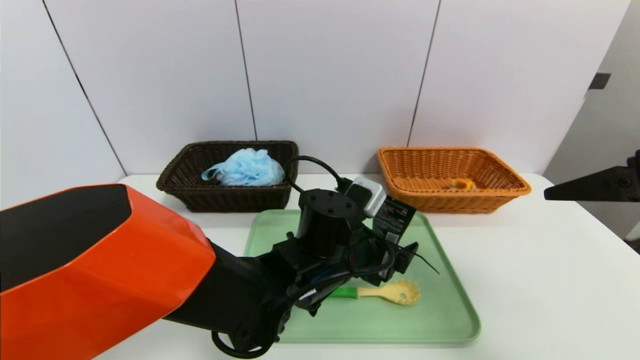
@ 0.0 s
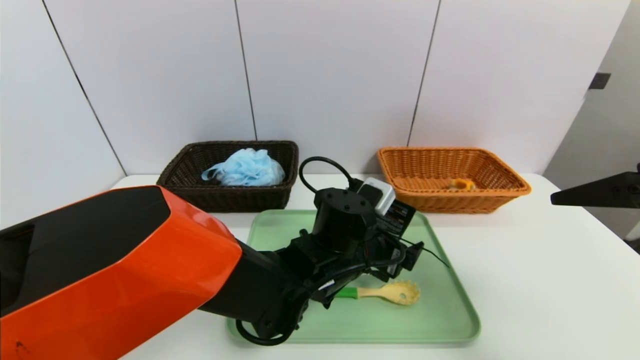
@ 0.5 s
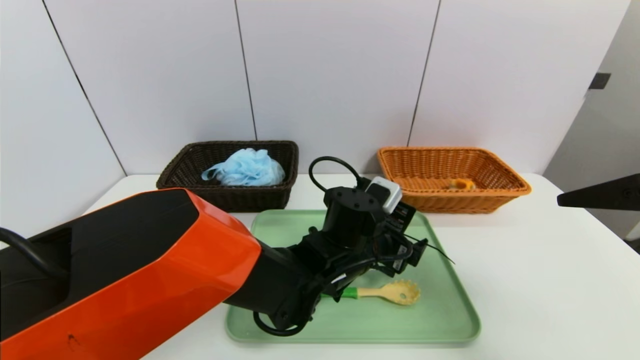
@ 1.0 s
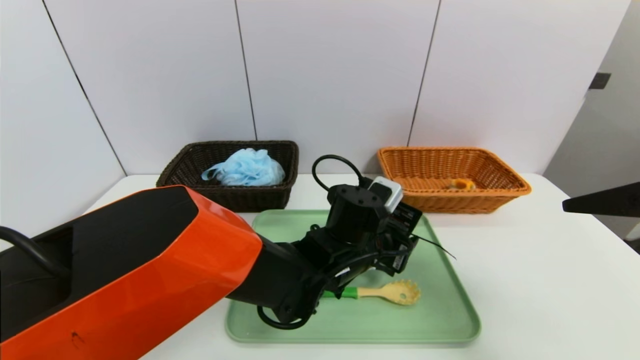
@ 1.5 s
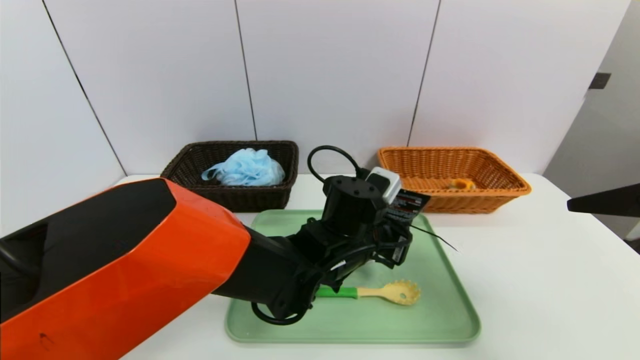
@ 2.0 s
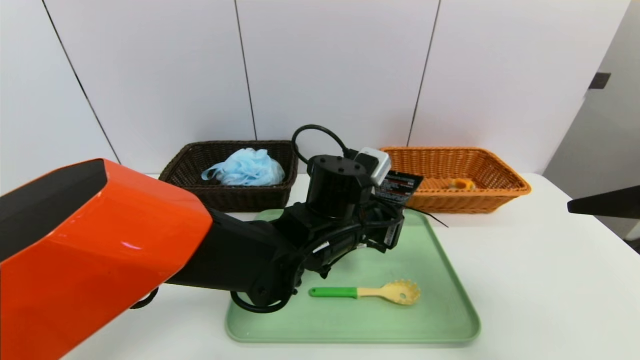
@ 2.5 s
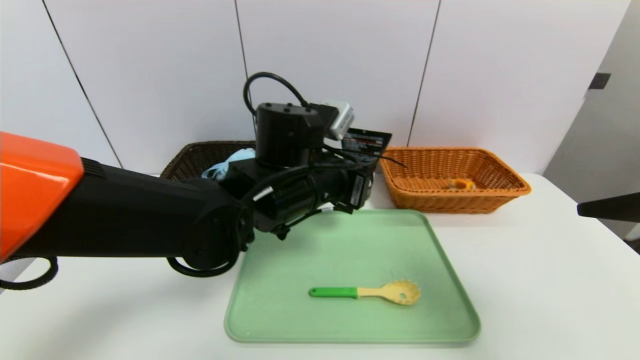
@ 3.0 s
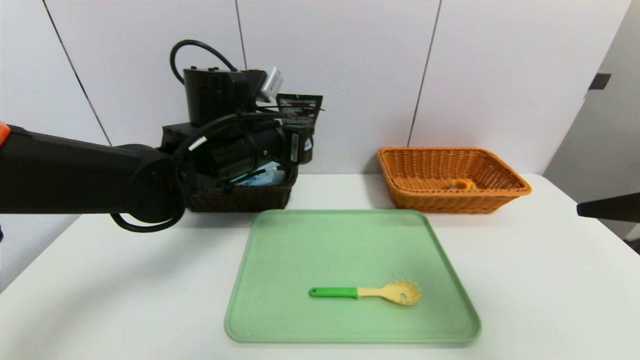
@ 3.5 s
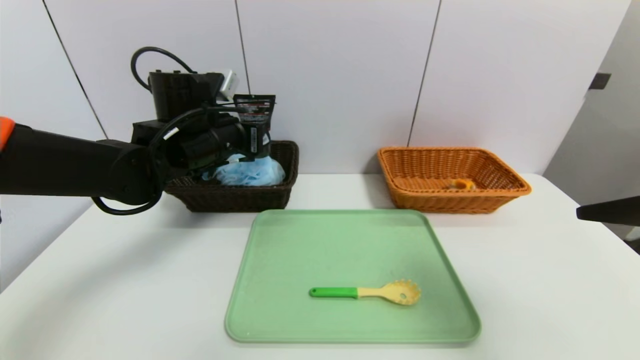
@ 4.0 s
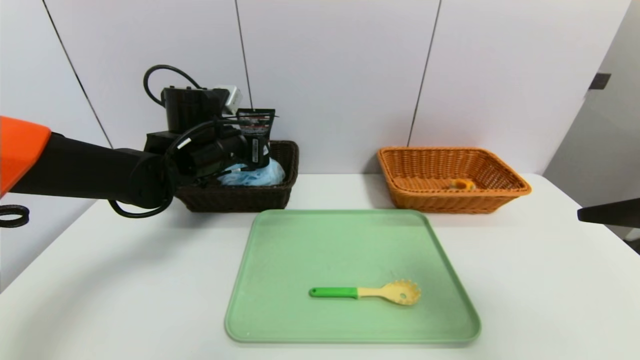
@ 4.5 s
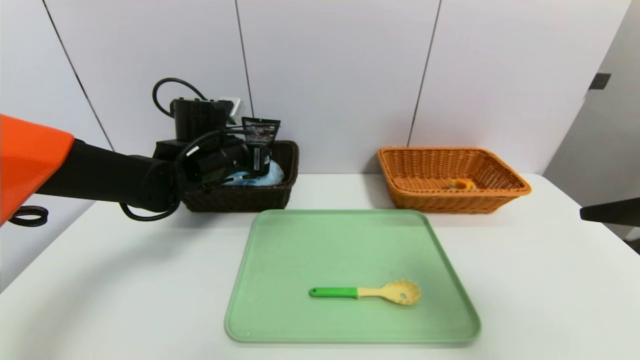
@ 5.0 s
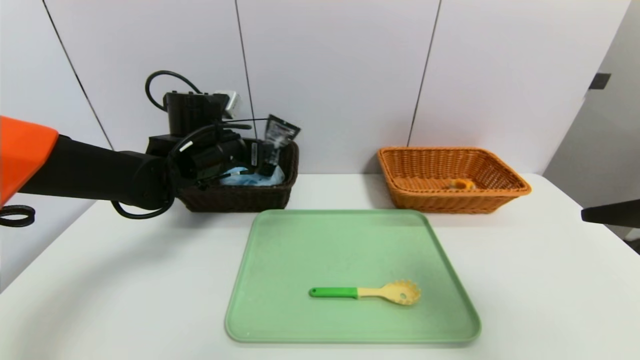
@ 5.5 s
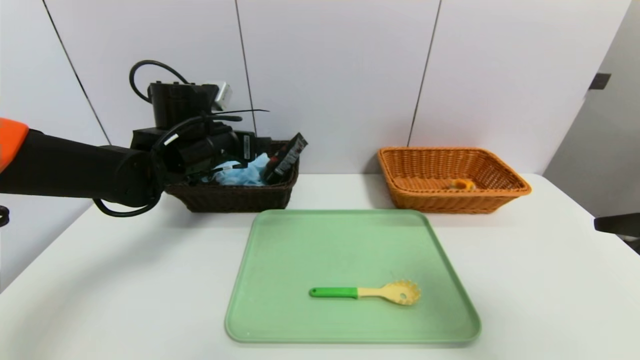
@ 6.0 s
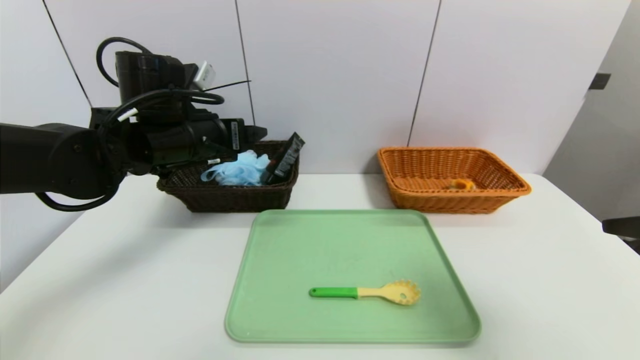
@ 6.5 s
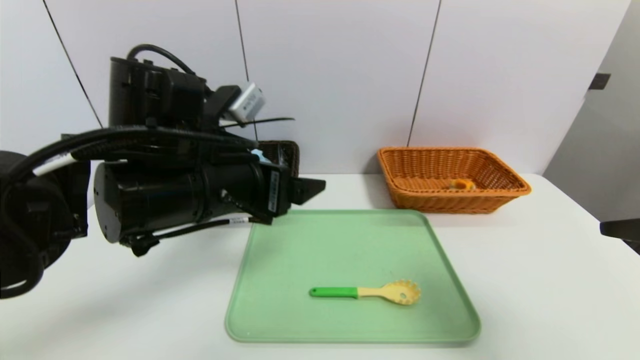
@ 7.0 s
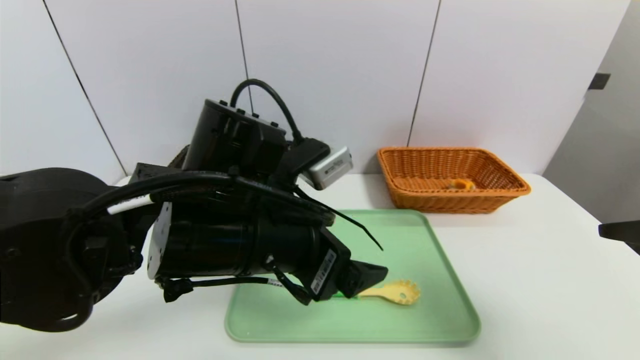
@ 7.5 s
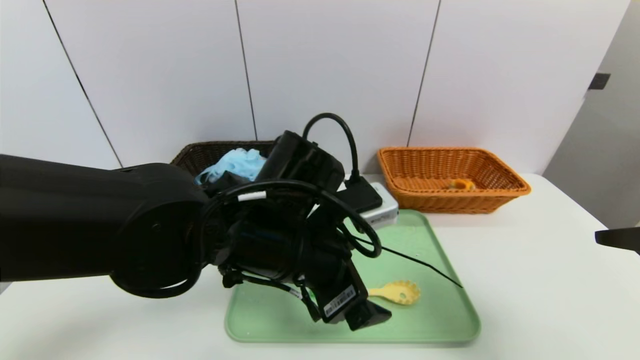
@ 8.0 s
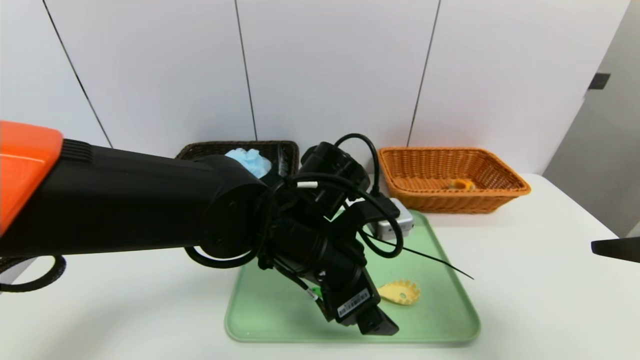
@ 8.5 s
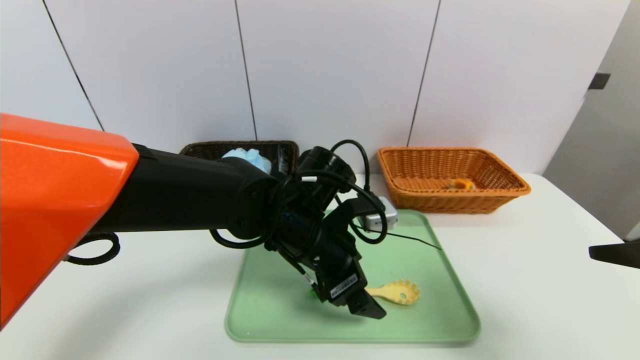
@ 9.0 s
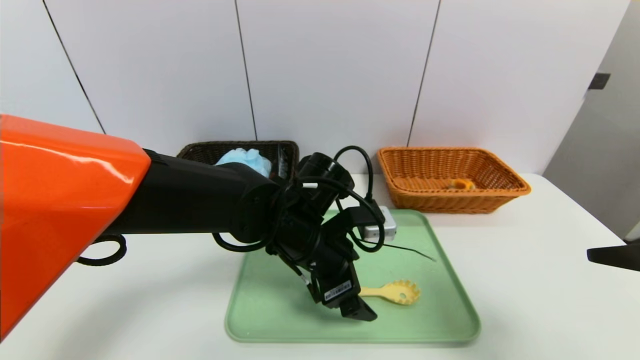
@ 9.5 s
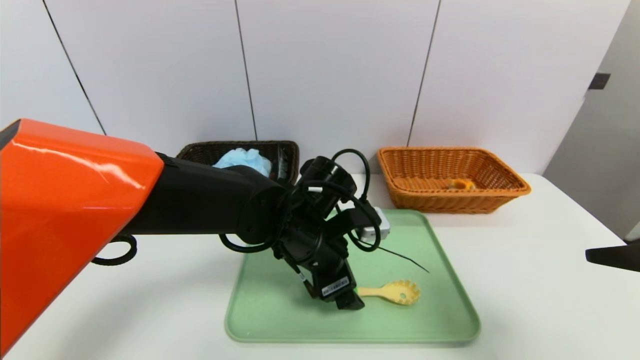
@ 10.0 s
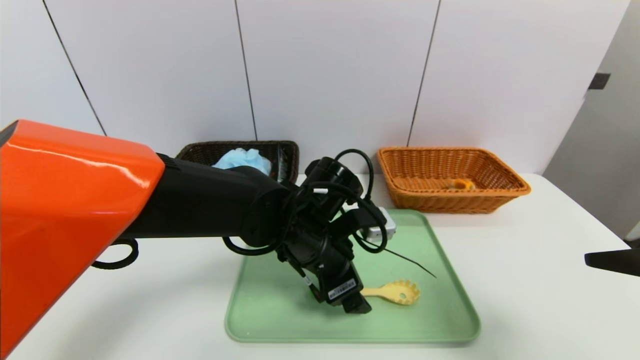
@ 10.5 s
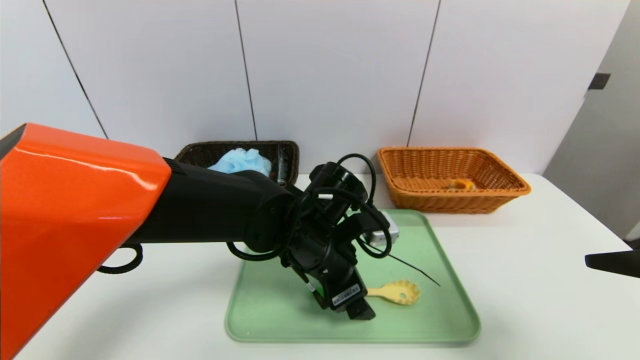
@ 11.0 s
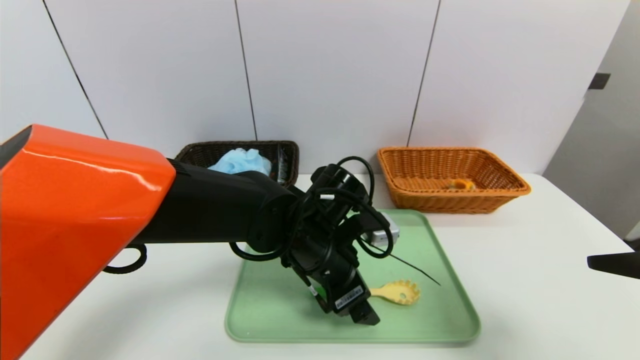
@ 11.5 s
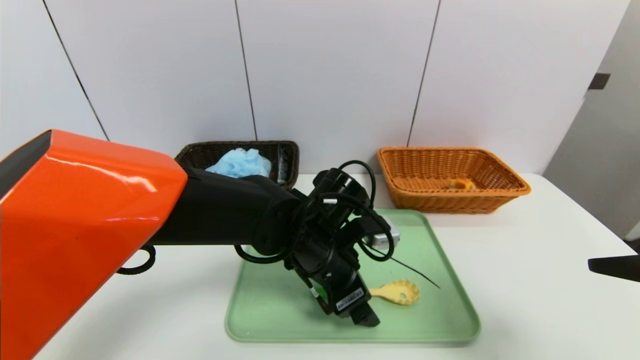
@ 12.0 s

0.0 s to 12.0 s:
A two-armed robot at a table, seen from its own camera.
Task of the whole recording: place the food in the right basket with the right gripper, and place the non food items in the left basket with the left gripper.
Step, 0.0 to 5.5 s: Grasp the soft cleanser and put it in the left basket.
0.0 to 2.0 s: The left gripper closes.
2.0 to 4.0 s: The left gripper shifts approximately 25 cm to the left and upward.
4.0 to 6.0 s: The left gripper opens up.
6.0 to 8.0 s: The left gripper moves backward and to the right, about 20 cm.
8.0 to 10.0 s: The left gripper is displaced forward and downward by roughly 10 cm.
10.0 to 12.0 s: There are only small adjustments of the grippers.

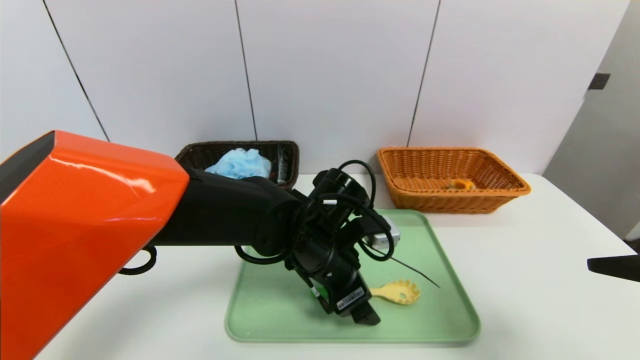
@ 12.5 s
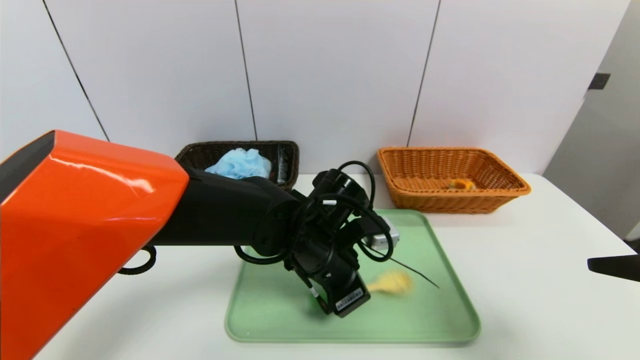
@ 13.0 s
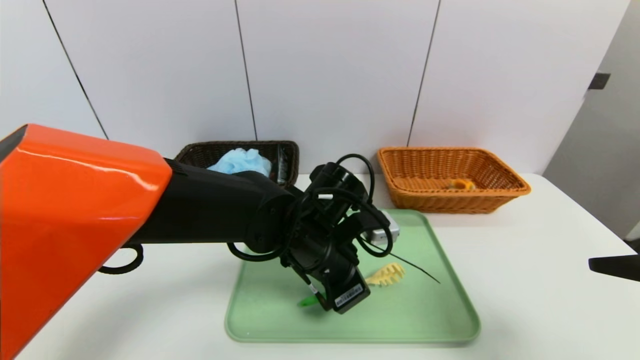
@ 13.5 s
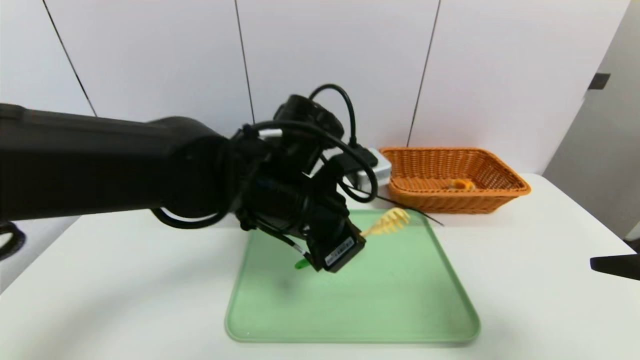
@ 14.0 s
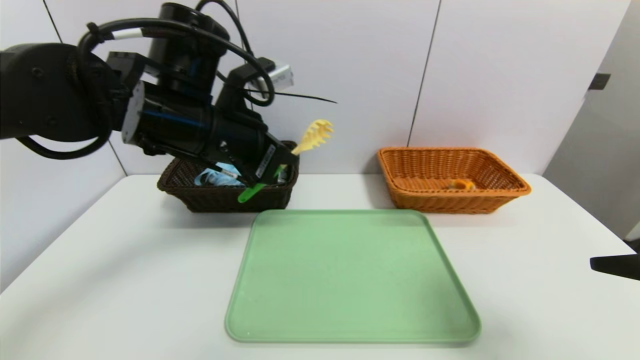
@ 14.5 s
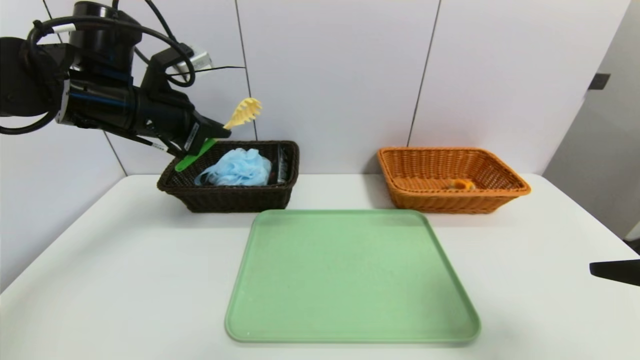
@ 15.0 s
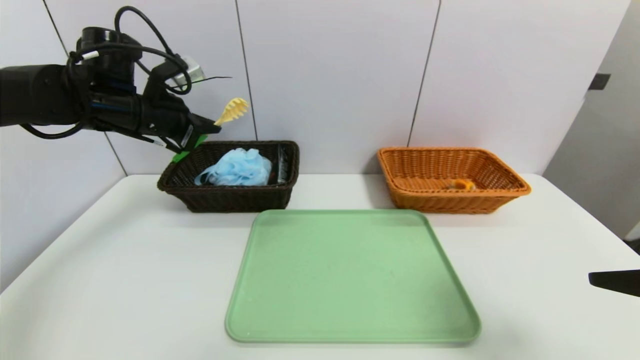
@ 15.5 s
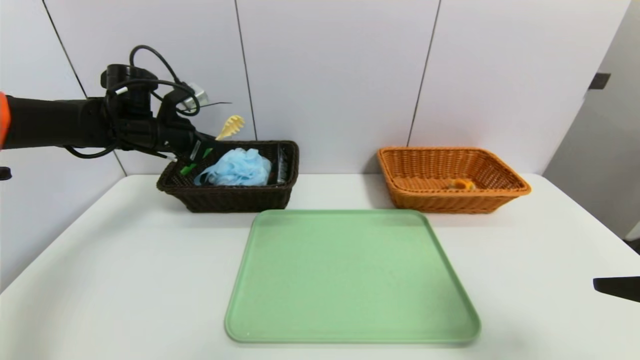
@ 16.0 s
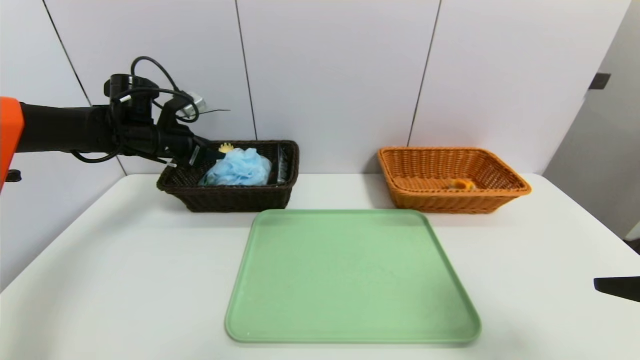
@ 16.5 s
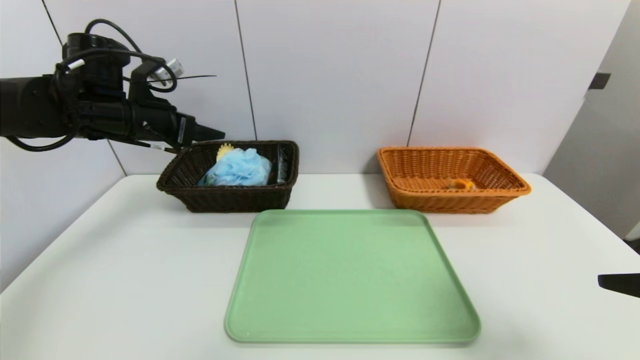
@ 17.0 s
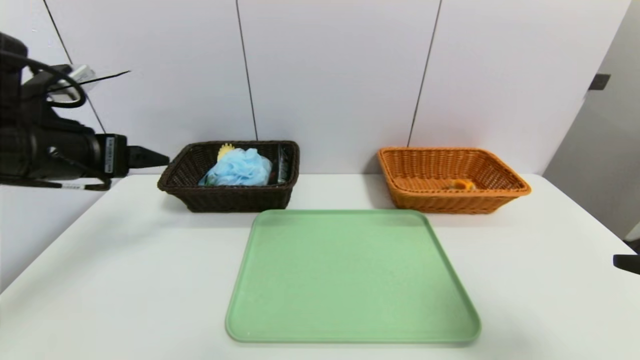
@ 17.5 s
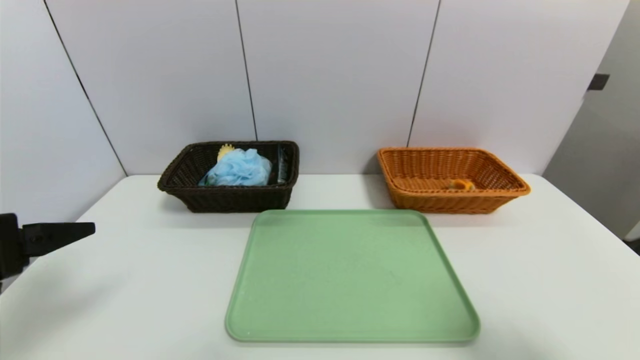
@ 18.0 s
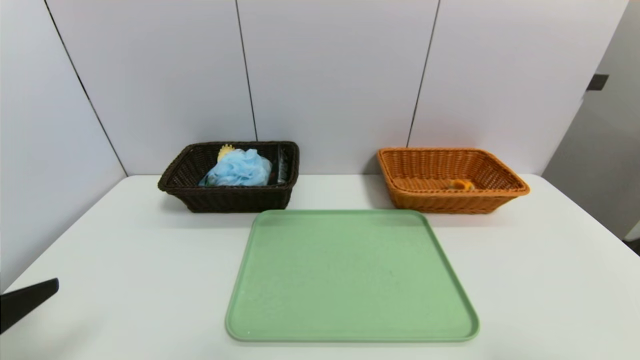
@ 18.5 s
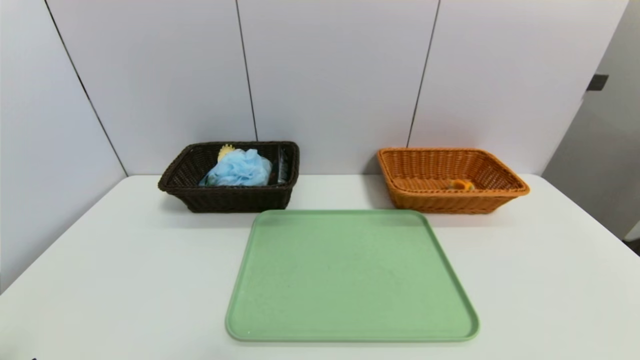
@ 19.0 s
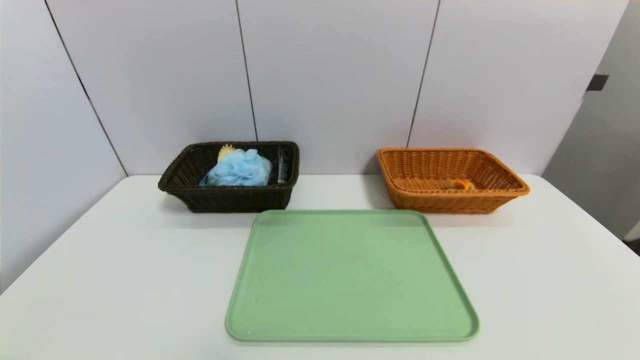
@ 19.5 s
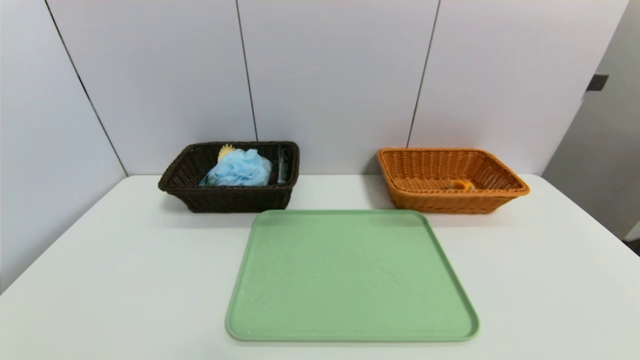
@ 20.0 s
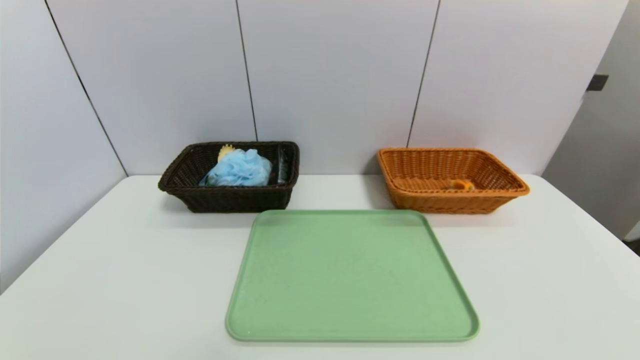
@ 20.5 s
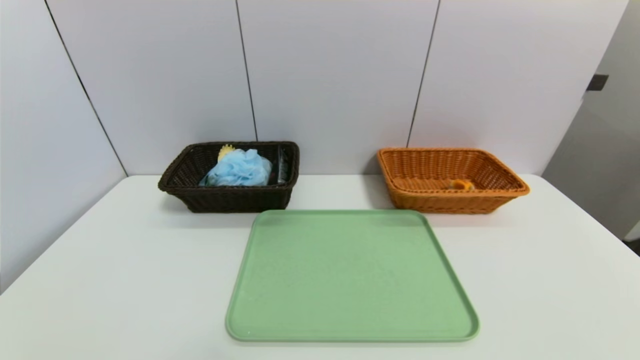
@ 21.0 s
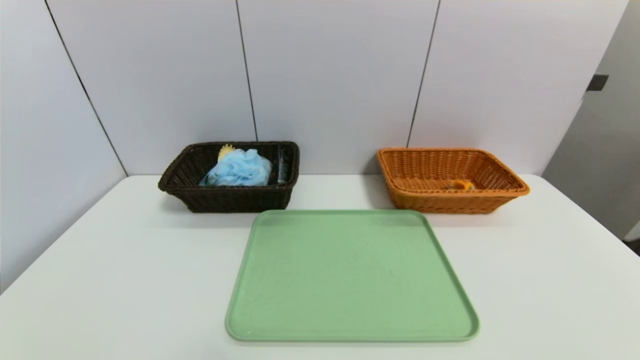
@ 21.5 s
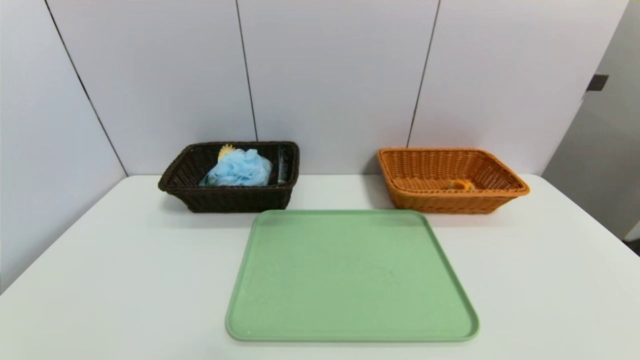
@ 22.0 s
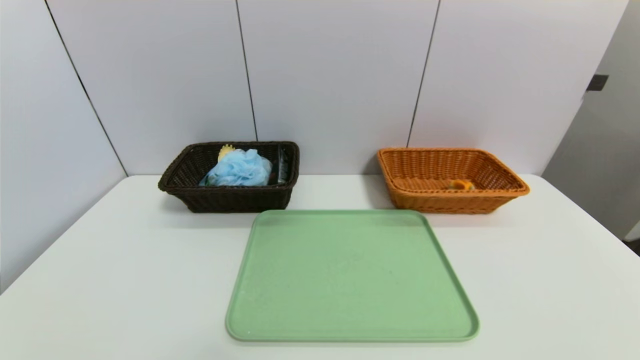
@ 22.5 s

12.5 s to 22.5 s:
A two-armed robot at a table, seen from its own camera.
Task of the whole recording: place the food in the right basket with the right gripper, and place the non food items in the left basket with the left gripper.
Step, 12.5 to 16.5 s: Grasp the back scratcher and put it in the left basket.
12.5 to 14.5 s: The left gripper shifts approximately 20 cm upward and to the left, and closes.
14.5 to 16.5 s: The left gripper heads to the left, forward and downward, covering some 25 cm, and opens.
16.5 to 18.5 s: The left gripper travels backward by about 40 cm, and opens its fingers. The right gripper travels backward by about 10 cm.
18.5 to 20.5 s: The left gripper moves downward and backward, some 20 cm.
